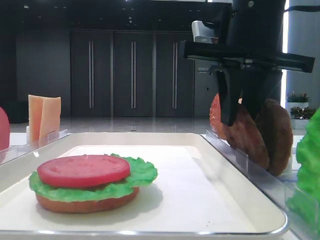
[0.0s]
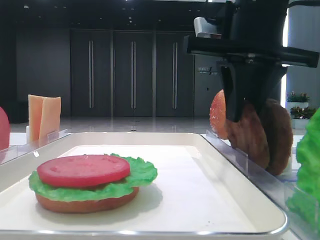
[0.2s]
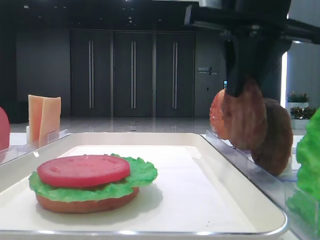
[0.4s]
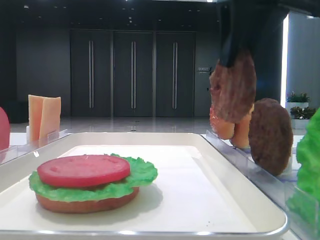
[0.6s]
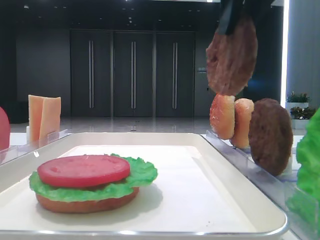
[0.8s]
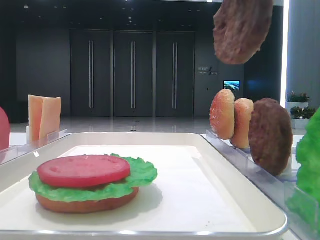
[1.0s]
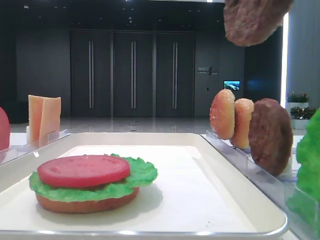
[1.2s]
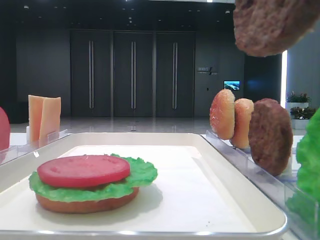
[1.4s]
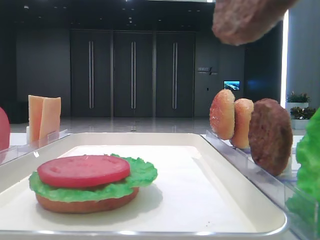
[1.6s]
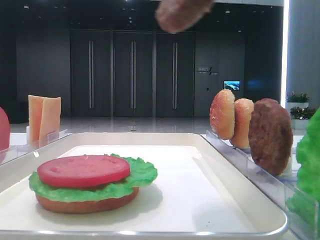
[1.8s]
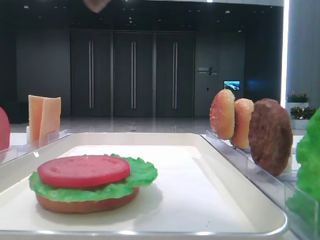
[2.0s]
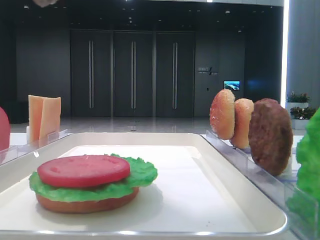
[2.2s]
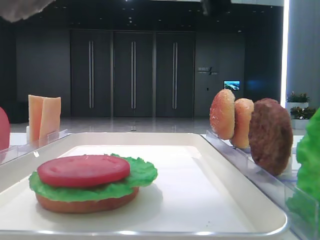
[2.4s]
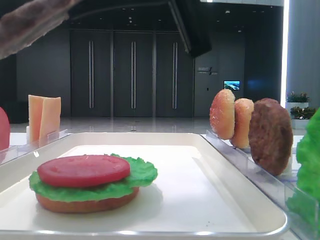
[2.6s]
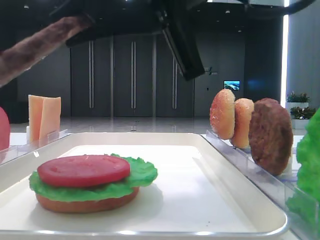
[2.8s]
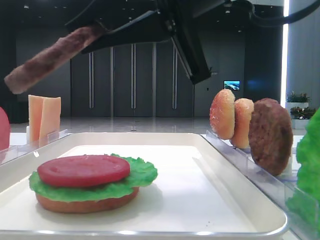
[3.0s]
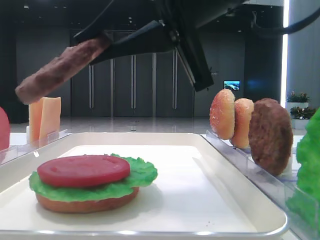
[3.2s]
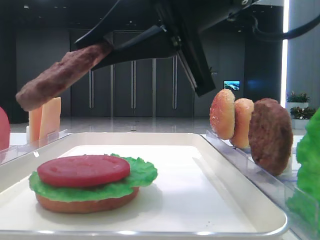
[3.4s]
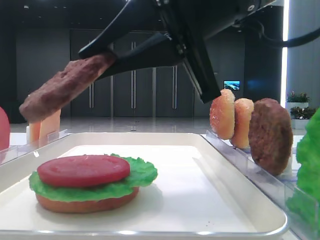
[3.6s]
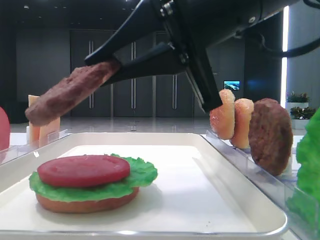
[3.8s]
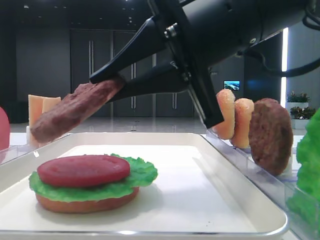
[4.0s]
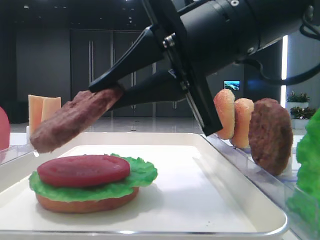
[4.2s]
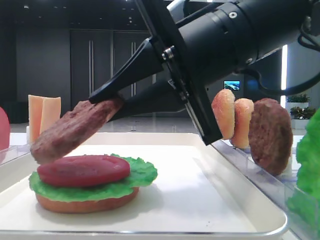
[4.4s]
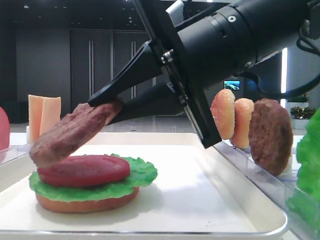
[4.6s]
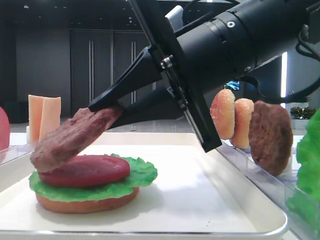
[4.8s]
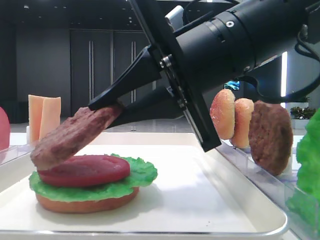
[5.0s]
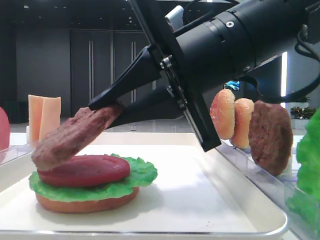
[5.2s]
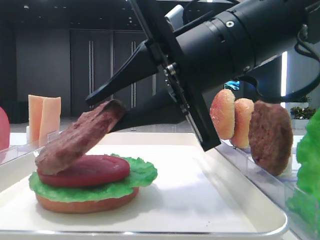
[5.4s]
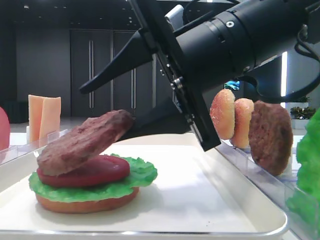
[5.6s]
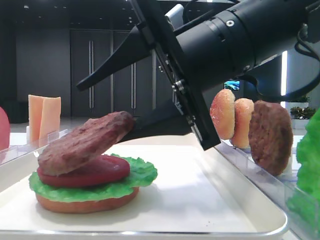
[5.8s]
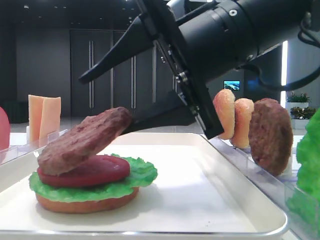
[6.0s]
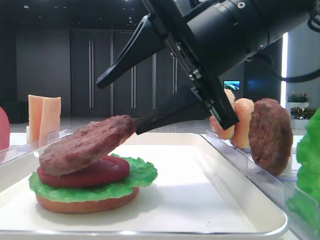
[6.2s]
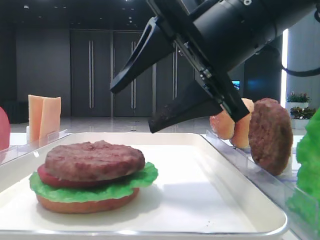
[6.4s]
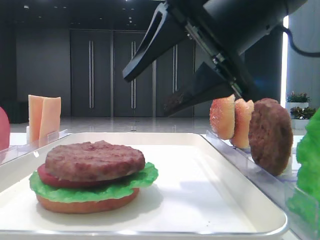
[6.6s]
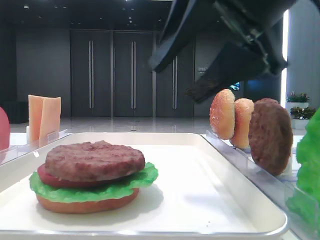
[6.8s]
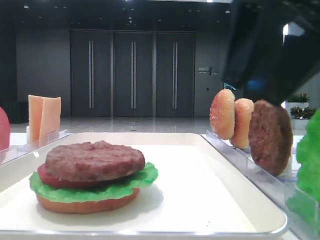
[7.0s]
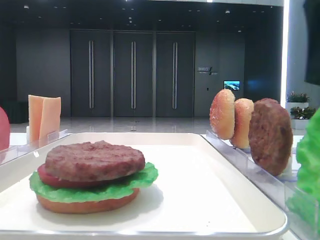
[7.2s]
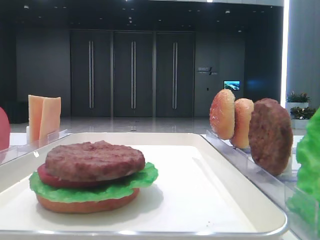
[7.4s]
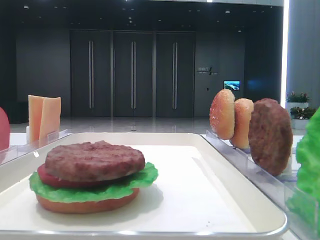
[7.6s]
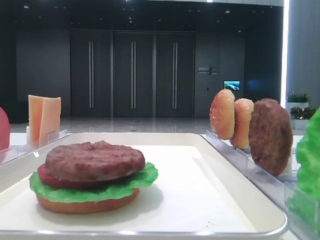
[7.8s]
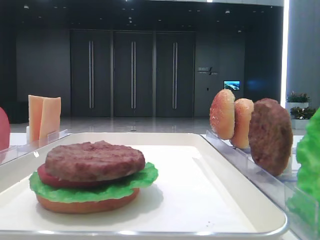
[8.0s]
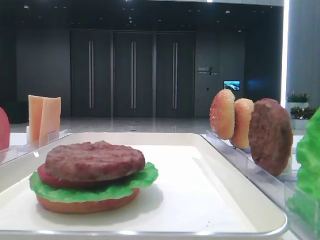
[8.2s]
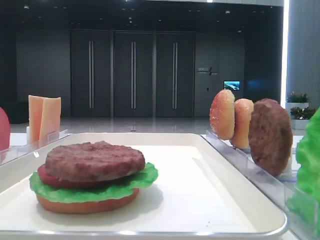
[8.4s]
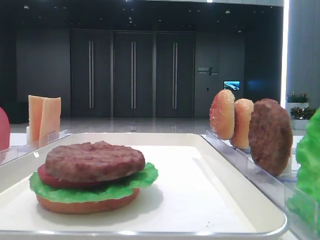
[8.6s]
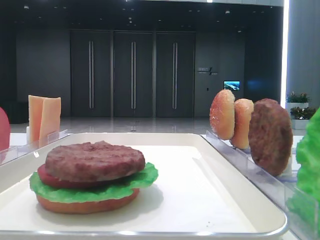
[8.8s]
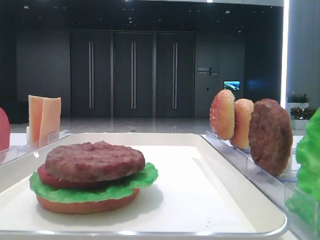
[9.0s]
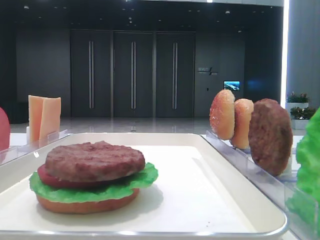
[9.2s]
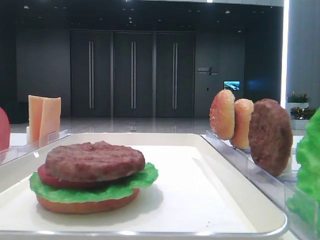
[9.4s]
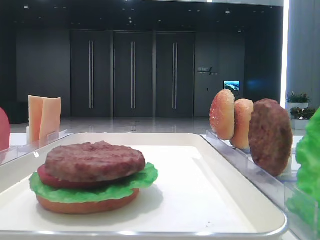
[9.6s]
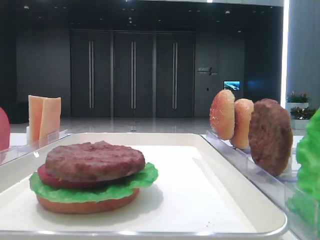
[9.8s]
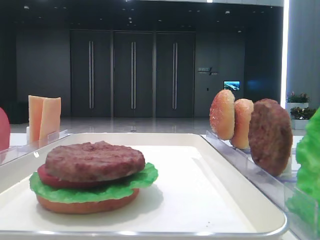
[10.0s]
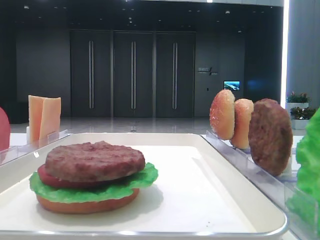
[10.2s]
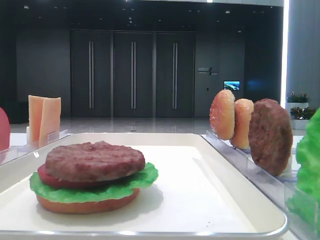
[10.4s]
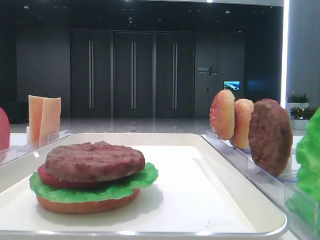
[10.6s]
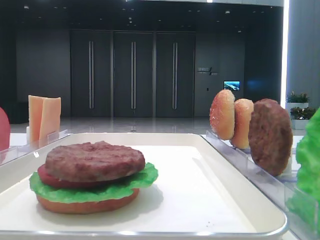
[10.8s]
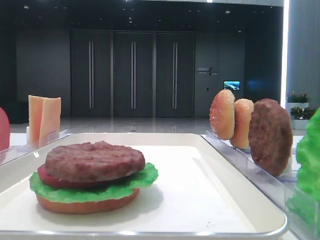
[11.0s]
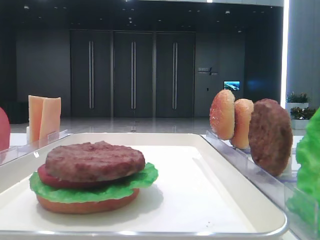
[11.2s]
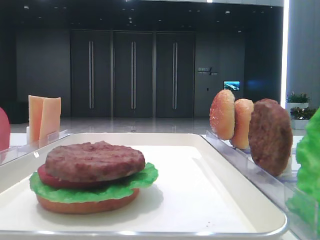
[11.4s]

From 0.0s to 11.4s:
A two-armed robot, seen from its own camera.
Step, from 0.2s to 6.2s: Place the patty on the tomato slice with the right hand.
From 0.0s to 1.4s: The right gripper shifts roughly 20 cm backward and upward.
From 1.4s to 2.8s: The right gripper moves downward, to the left and forward, some 15 cm.
From 2.8s to 4.2s: The right gripper goes some 5 cm downward.
From 4.2s to 5.6s: The right gripper opens its fingers.
From 5.6s to 7.2s: The right gripper travels to the right and upward by approximately 15 cm.
From 7.2s to 8.6s: The right gripper shifts approximately 20 cm backward, to the right and upward.
From 10.0s to 11.4s: Neither gripper changes place.
